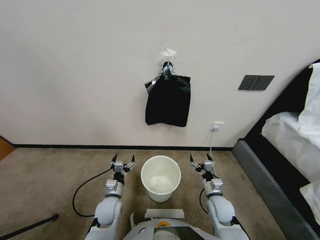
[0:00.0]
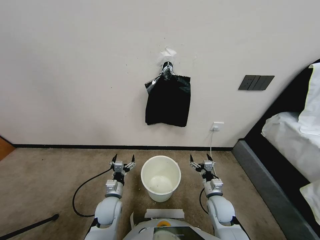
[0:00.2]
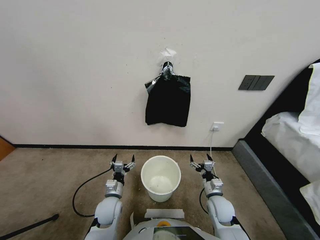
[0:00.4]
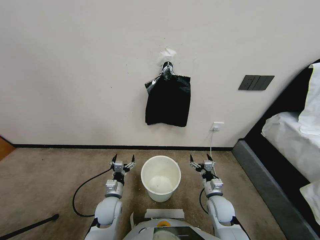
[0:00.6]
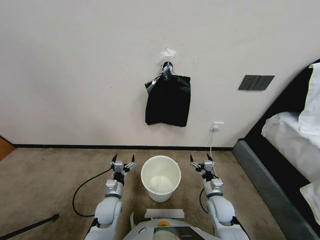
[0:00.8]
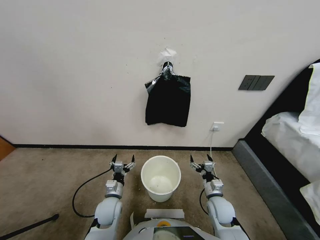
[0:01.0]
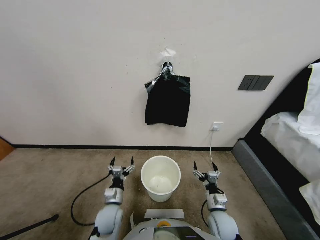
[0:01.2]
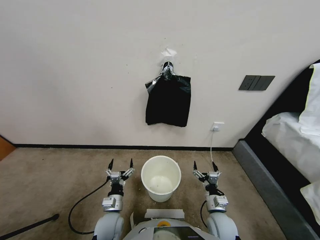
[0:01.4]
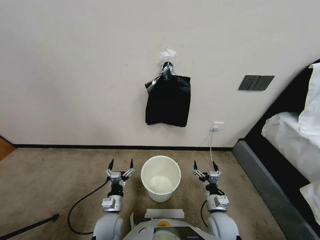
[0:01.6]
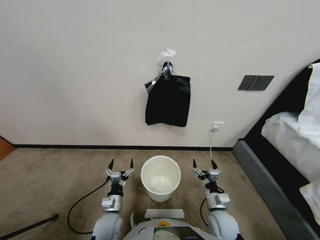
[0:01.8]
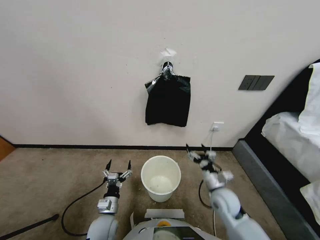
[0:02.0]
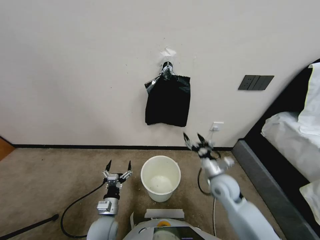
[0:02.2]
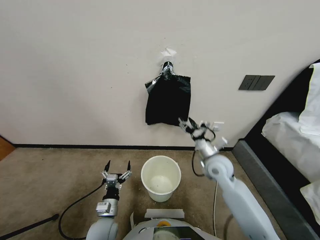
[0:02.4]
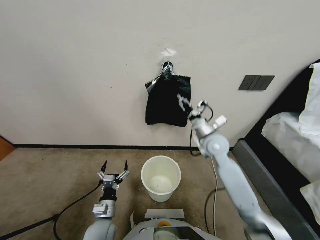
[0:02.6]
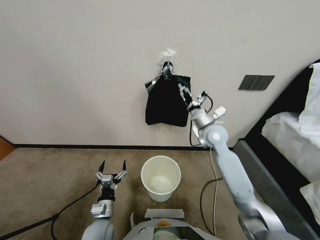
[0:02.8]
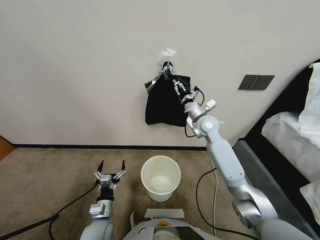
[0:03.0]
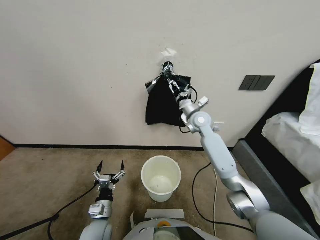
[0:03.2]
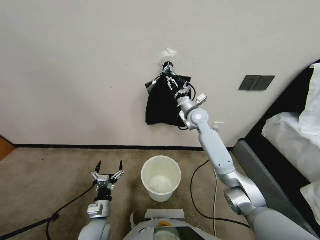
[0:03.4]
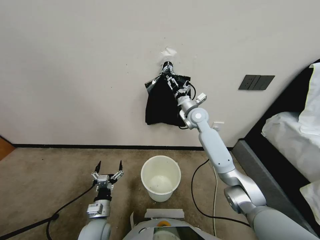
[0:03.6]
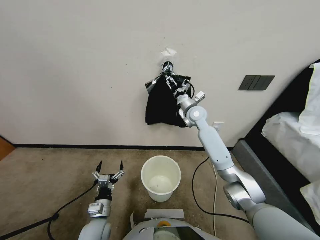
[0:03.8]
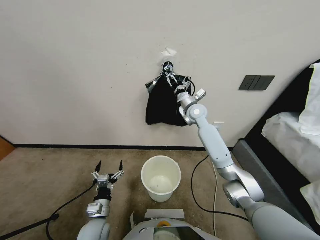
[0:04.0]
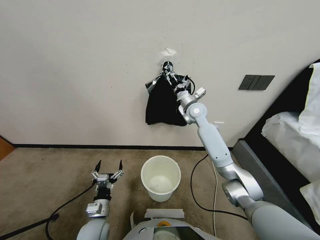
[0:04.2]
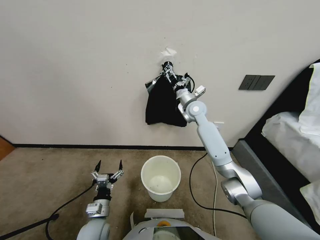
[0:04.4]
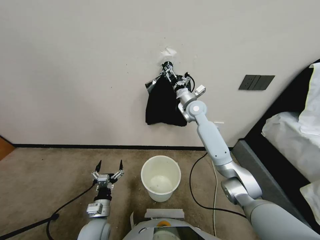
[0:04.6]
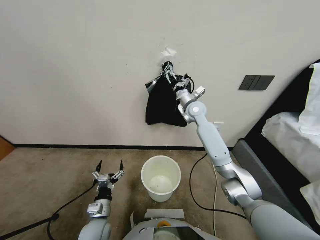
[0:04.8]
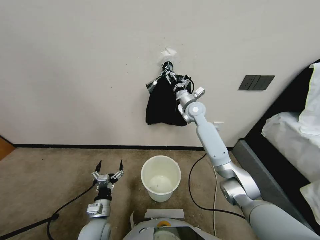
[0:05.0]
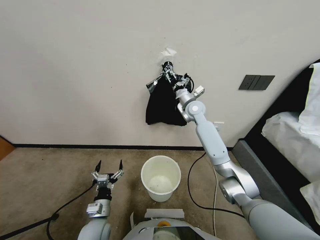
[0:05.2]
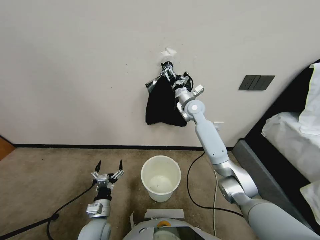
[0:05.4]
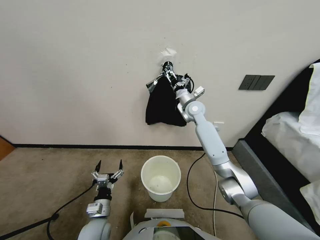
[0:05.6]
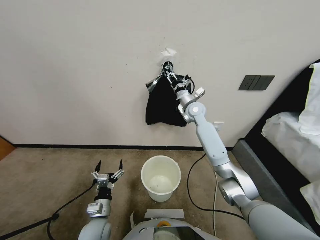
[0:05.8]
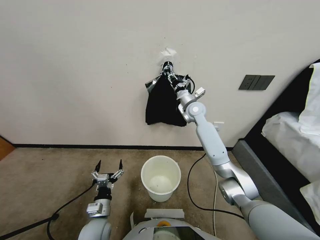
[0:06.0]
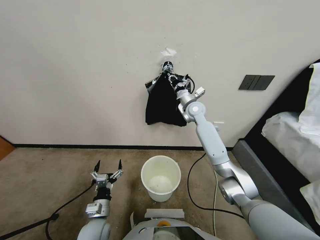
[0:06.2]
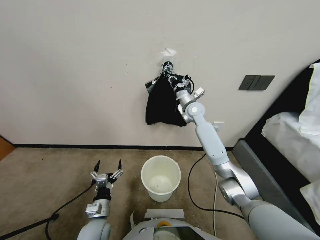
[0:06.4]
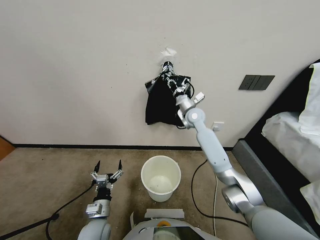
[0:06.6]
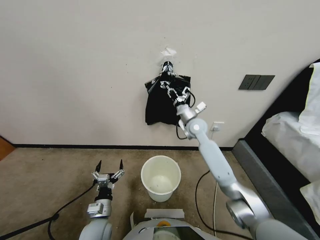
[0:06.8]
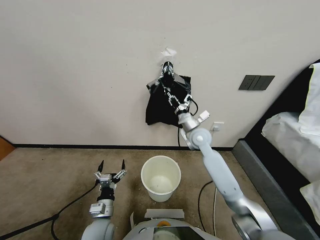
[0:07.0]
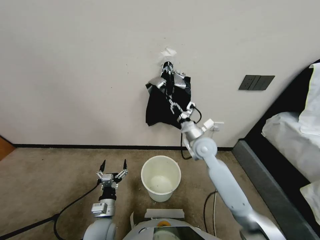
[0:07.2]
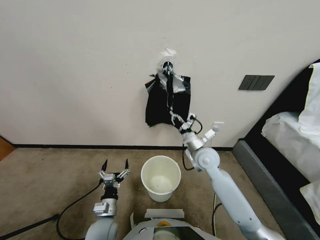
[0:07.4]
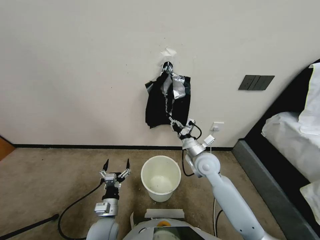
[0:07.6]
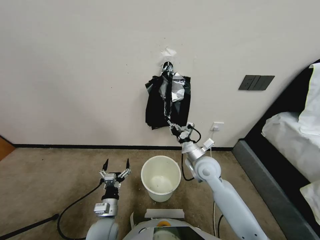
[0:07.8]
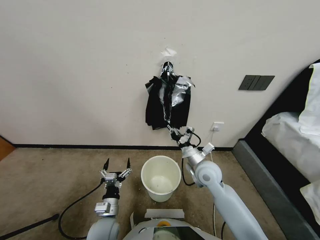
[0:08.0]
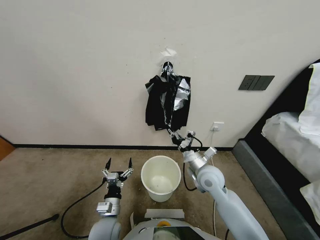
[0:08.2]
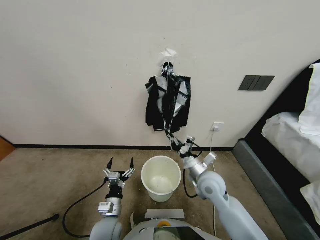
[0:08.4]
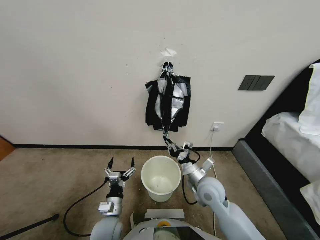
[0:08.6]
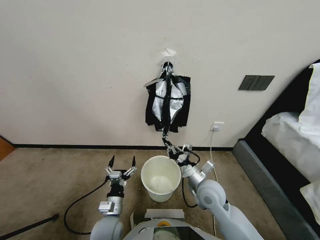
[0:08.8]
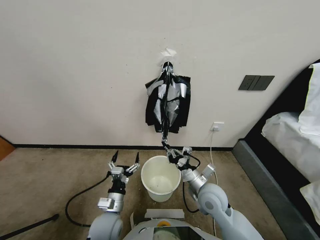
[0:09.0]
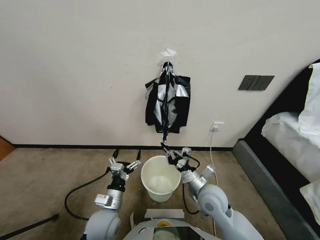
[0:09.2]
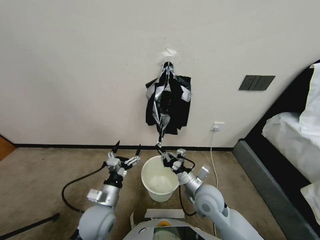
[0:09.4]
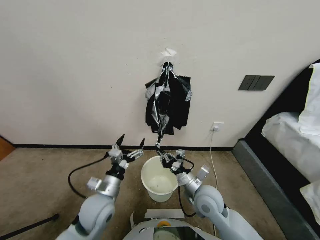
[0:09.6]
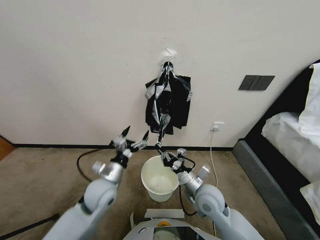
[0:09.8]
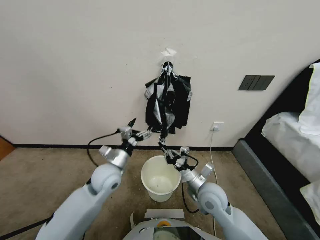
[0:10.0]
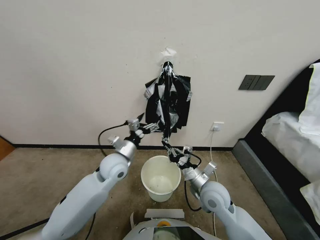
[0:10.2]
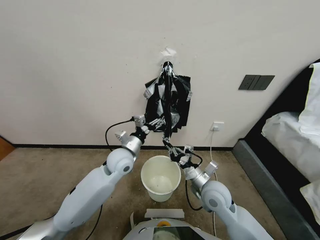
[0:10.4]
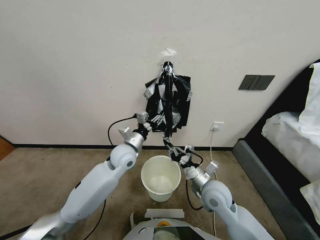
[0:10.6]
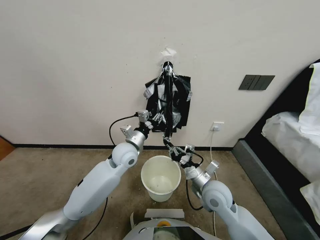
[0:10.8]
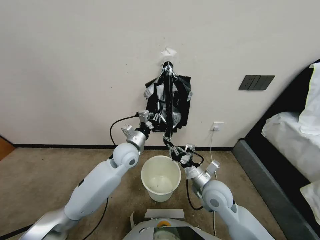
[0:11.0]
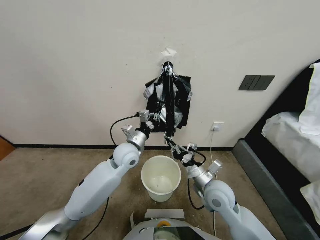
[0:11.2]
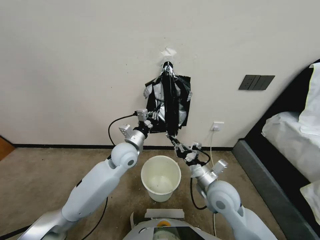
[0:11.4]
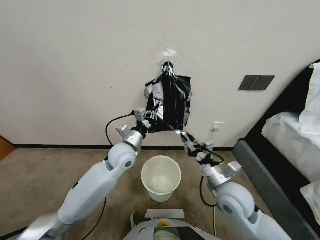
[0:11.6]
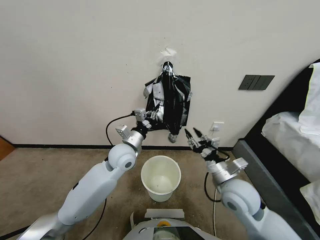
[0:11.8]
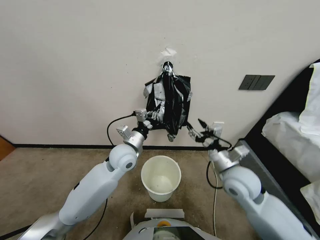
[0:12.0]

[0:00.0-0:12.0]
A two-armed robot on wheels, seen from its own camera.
Task of the whole recording: Place a trash bag onto the trash bin.
0:01.6 to 0:03.0: The right gripper heads forward and upward, covering roughly 40 cm.
0:03.0 to 0:04.4: The right gripper travels forward by roughly 5 cm.
0:04.4 to 0:06.0: The right gripper closes its fingers.
0:06.0 to 0:07.6: The right gripper travels backward and downward by about 25 cm.
0:07.6 to 0:09.0: The left gripper shifts roughly 5 cm upward. Meanwhile the right gripper goes roughly 10 cm backward.
0:09.0 to 0:10.4: The left gripper moves forward and upward, approximately 25 cm, and closes up.
0:10.4 to 0:12.0: The left gripper closes, while the right gripper shifts approximately 10 cm upward and to the right, and opens up.

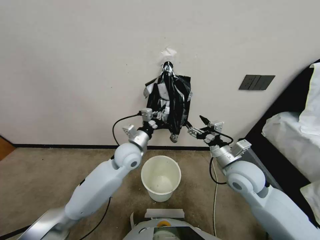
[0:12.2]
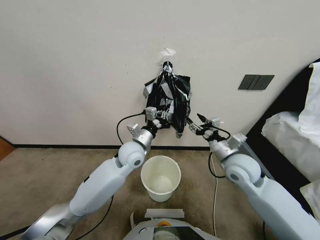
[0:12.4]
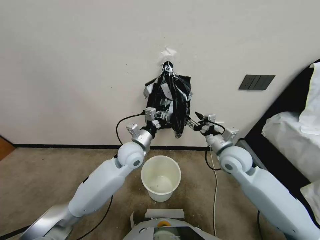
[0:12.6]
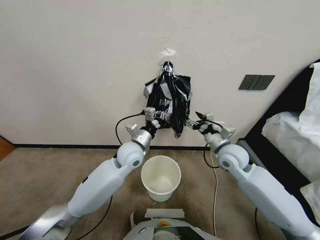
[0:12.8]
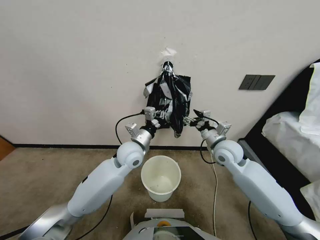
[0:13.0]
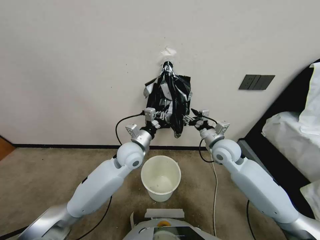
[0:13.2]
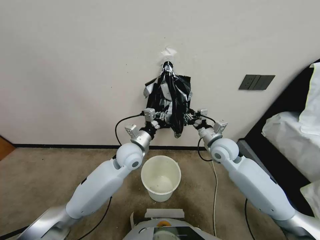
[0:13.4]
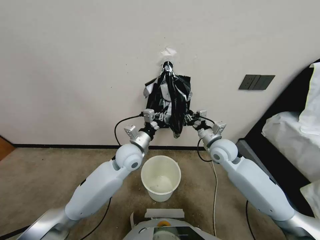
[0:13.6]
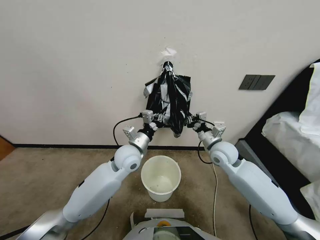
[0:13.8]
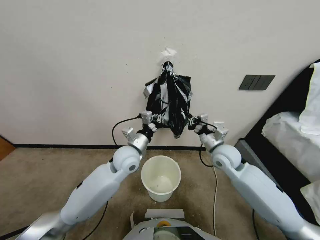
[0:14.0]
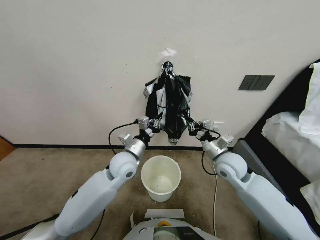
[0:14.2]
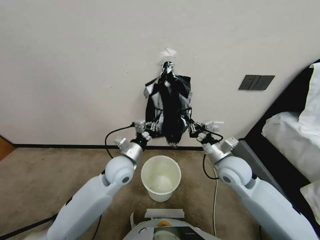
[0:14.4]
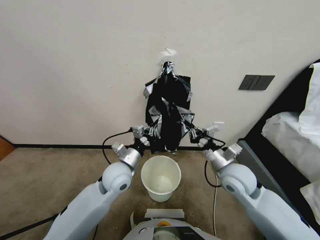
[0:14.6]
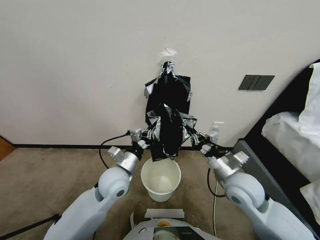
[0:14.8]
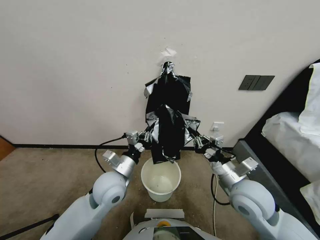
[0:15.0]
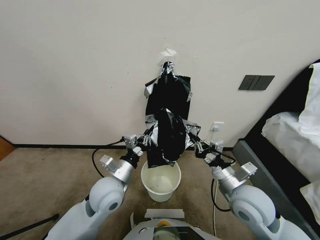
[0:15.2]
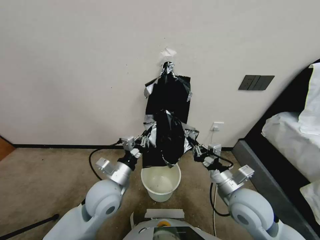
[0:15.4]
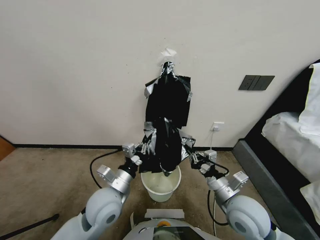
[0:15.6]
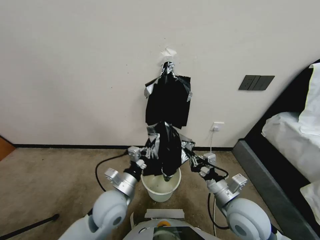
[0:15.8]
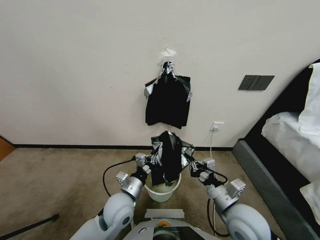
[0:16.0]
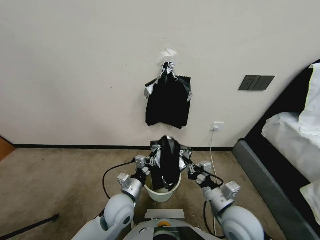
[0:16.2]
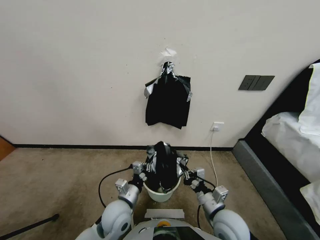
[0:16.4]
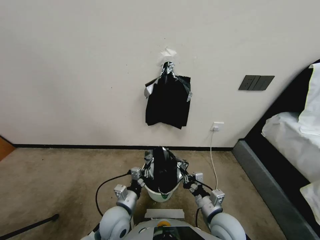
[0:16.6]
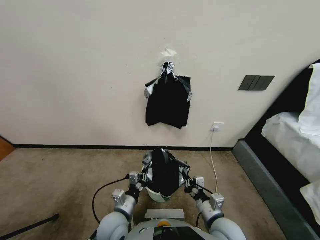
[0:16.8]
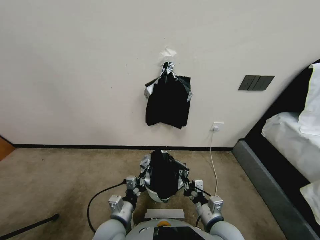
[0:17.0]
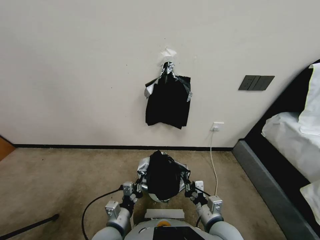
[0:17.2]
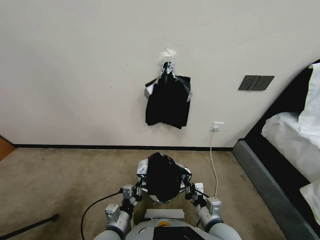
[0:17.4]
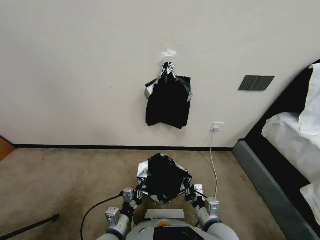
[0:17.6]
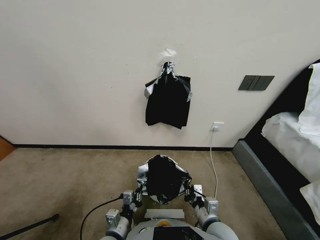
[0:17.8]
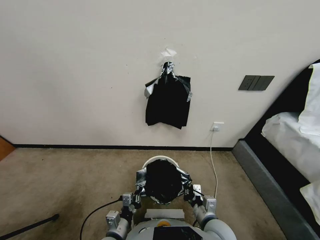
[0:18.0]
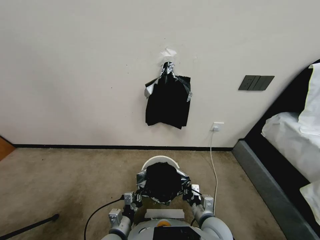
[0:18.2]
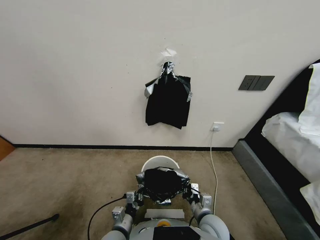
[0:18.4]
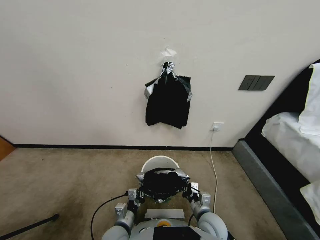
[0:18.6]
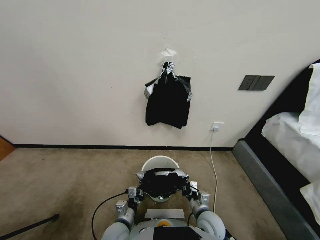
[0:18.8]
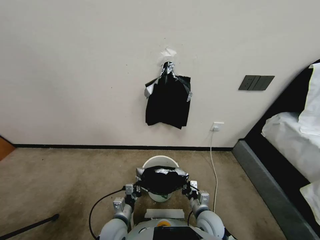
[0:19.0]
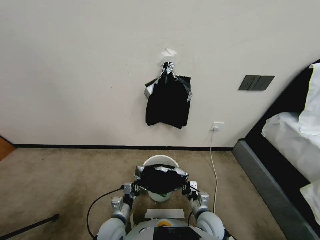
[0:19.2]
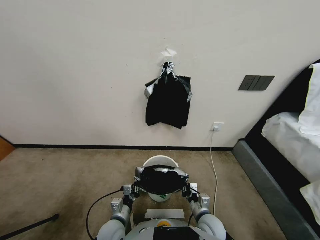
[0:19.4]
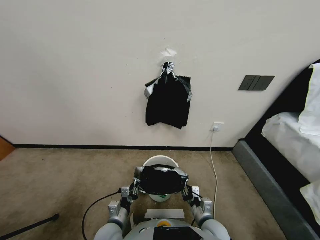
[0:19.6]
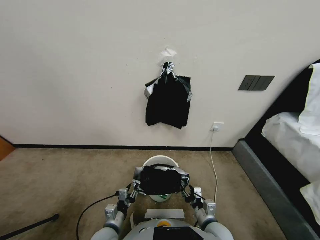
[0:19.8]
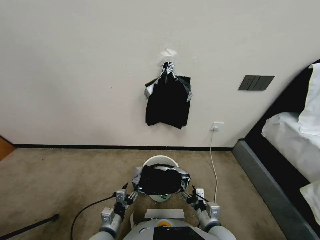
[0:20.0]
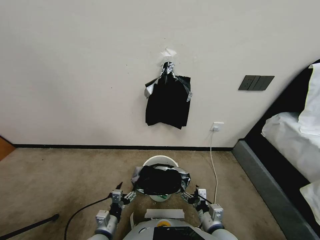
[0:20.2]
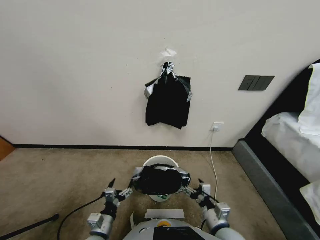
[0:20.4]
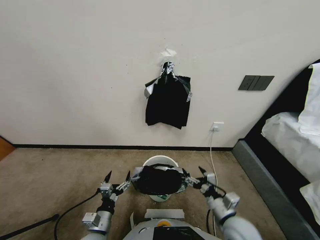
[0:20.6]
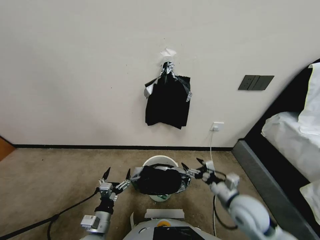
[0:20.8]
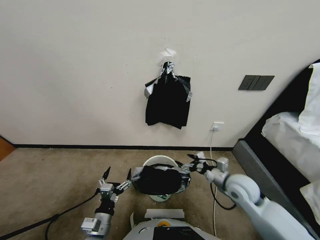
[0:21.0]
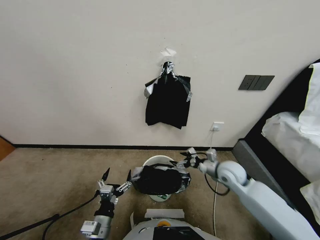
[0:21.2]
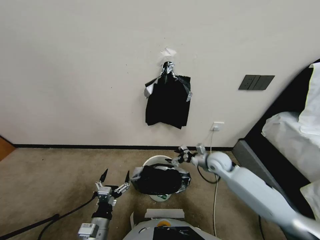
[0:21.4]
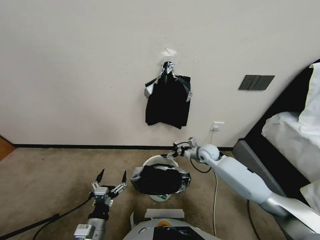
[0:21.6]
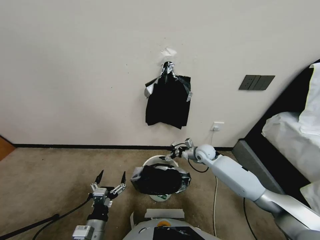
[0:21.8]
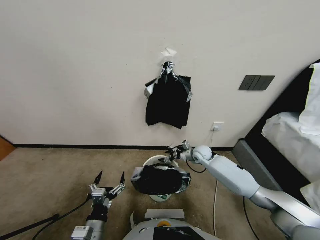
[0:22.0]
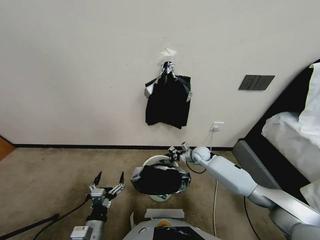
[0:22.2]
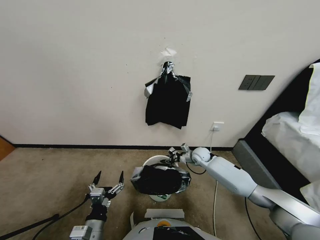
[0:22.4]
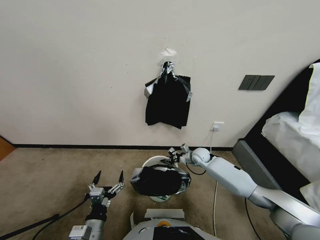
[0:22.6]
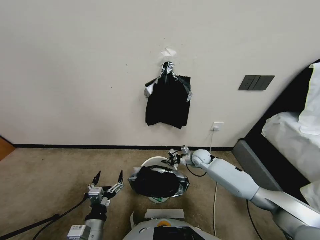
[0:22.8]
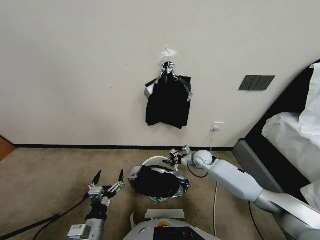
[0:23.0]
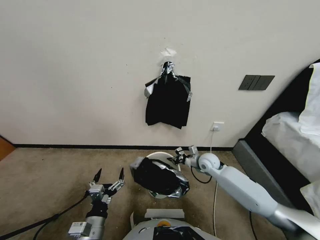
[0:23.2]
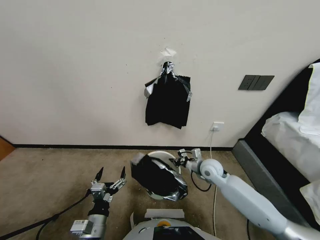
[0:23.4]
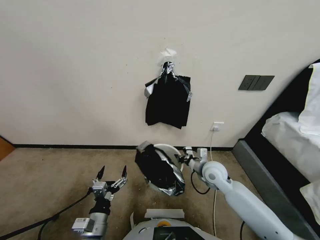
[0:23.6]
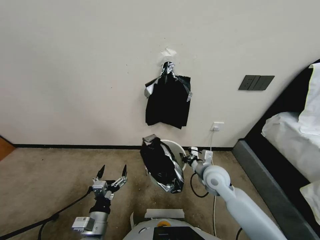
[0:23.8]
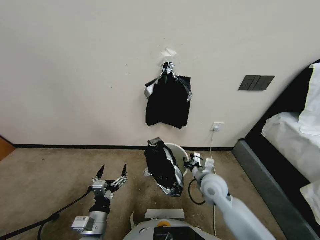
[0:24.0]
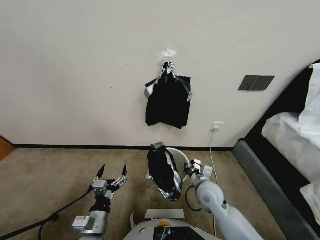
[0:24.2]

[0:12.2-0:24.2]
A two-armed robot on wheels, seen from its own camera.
Task of the whole recording: Place a trash bag onto the trash bin.
0:12.2 to 0:13.8: The right gripper is displaced forward by approximately 5 cm, and closes up.
0:13.8 to 0:15.2: The grippers both shift backward by approximately 15 cm.
0:15.2 to 0:16.6: The grippers both shift downward and backward by some 15 cm.
0:16.6 to 0:18.2: The left gripper is displaced downward and backward by about 10 cm.
0:18.2 to 0:19.8: The right gripper opens, while the left gripper opens.
0:19.8 to 0:21.2: The right gripper shifts about 25 cm forward and upward; the left gripper moves upward, approximately 5 cm, and opens its fingers.
0:21.2 to 0:22.6: The right gripper is displaced forward and downward by roughly 15 cm, and closes up.
0:22.6 to 0:24.2: The right gripper travels backward by approximately 20 cm.
